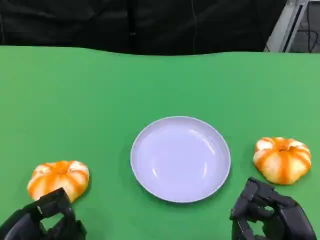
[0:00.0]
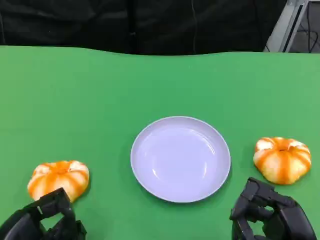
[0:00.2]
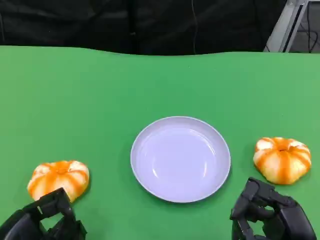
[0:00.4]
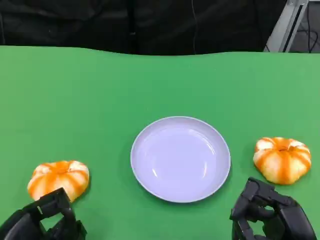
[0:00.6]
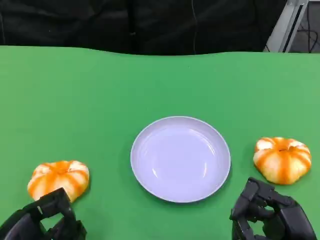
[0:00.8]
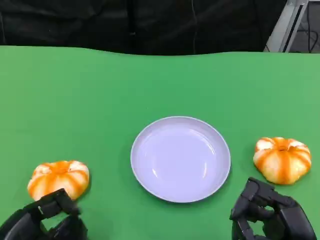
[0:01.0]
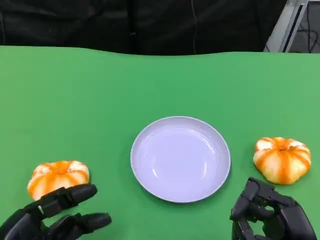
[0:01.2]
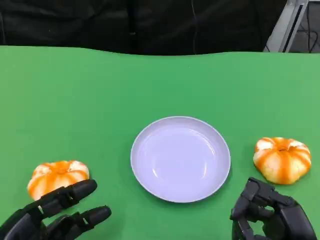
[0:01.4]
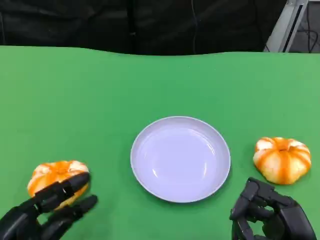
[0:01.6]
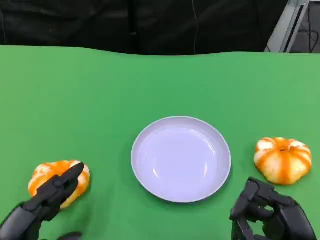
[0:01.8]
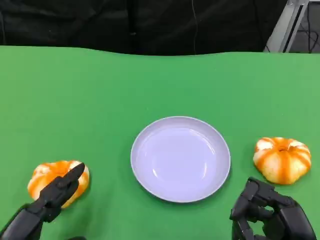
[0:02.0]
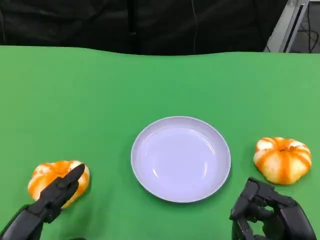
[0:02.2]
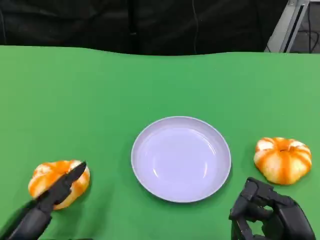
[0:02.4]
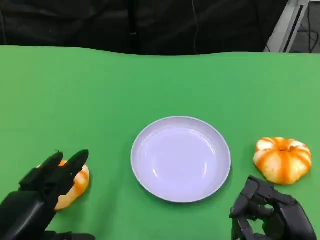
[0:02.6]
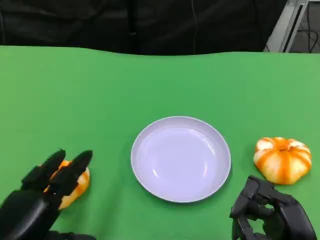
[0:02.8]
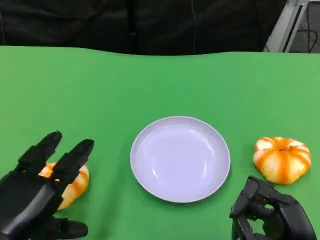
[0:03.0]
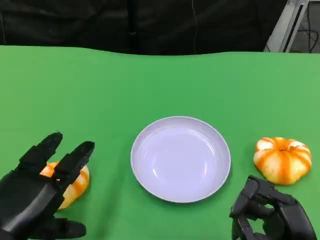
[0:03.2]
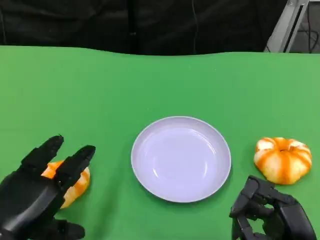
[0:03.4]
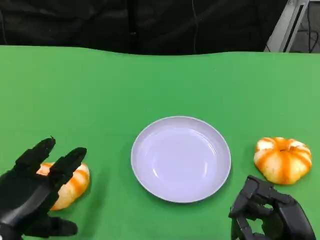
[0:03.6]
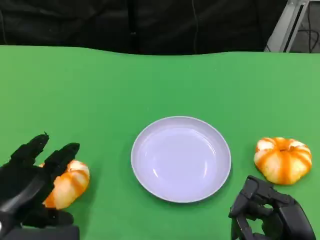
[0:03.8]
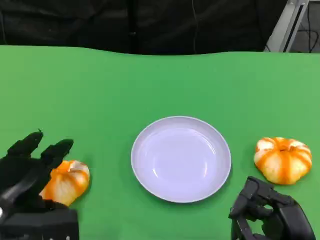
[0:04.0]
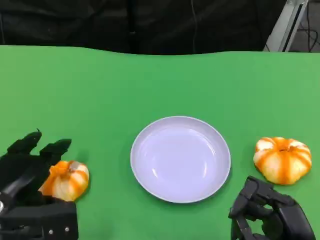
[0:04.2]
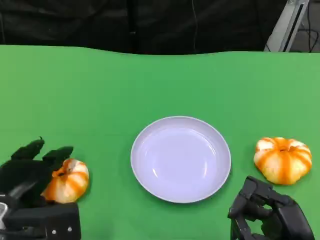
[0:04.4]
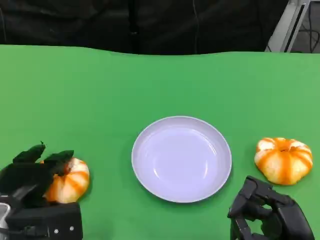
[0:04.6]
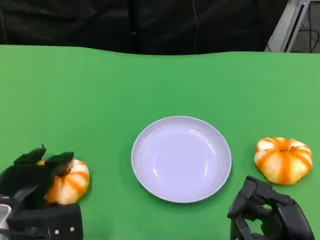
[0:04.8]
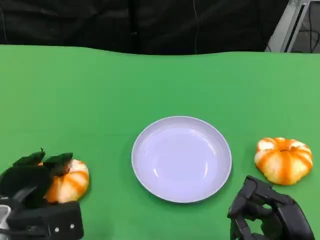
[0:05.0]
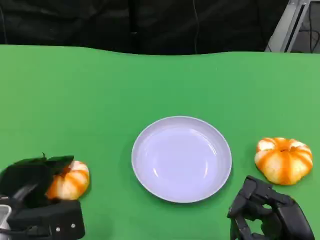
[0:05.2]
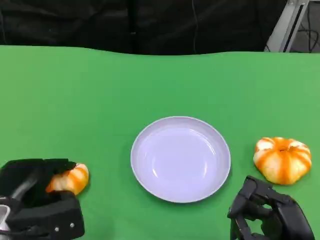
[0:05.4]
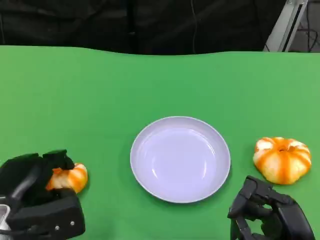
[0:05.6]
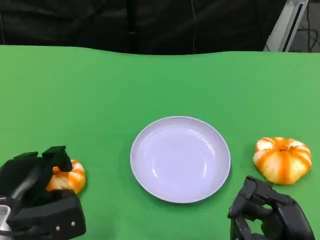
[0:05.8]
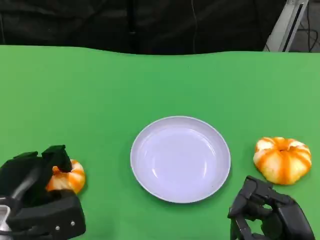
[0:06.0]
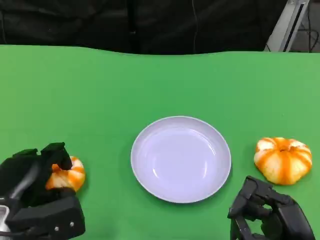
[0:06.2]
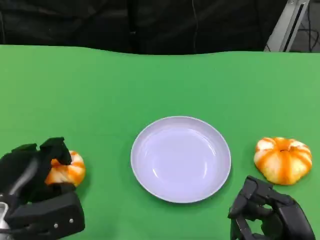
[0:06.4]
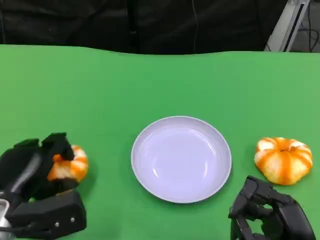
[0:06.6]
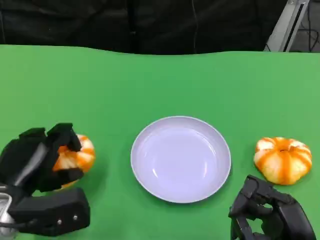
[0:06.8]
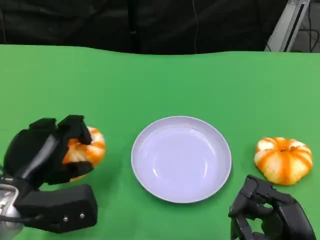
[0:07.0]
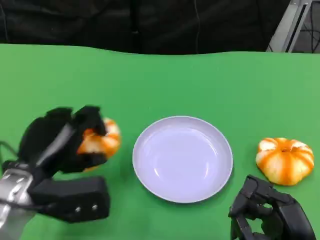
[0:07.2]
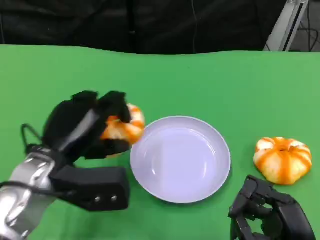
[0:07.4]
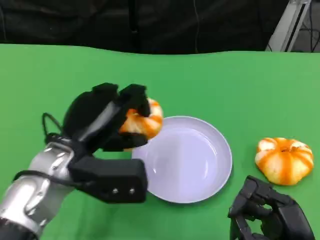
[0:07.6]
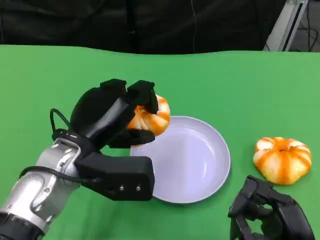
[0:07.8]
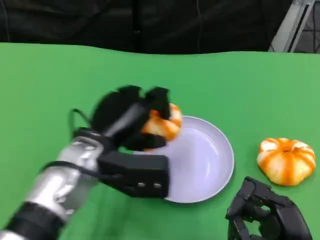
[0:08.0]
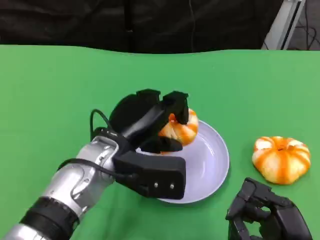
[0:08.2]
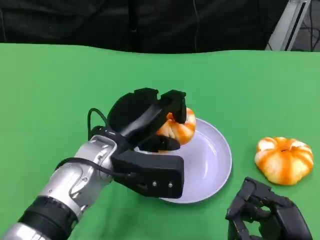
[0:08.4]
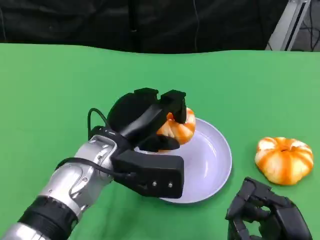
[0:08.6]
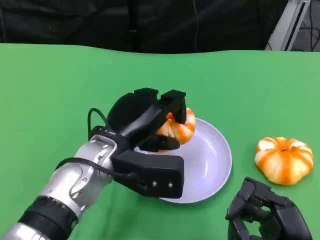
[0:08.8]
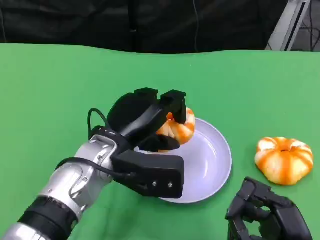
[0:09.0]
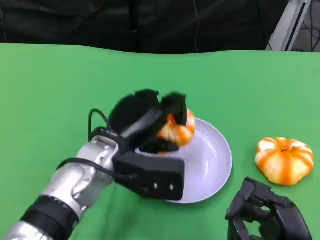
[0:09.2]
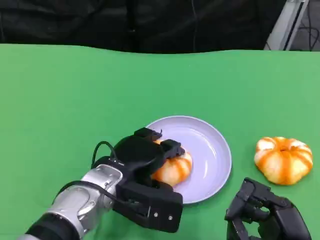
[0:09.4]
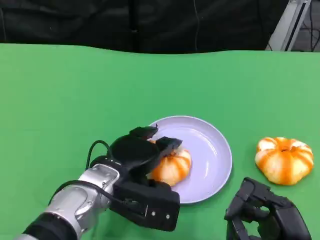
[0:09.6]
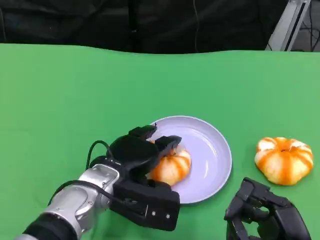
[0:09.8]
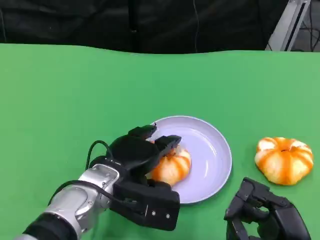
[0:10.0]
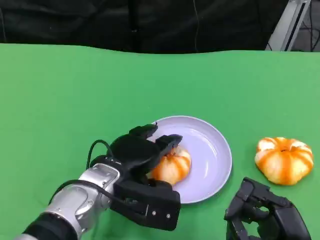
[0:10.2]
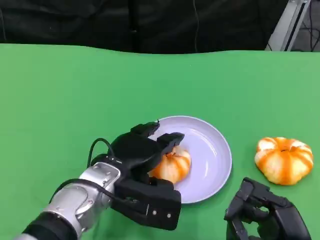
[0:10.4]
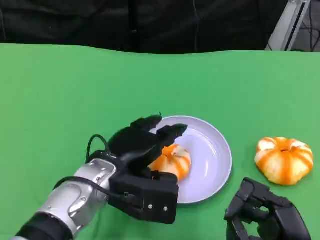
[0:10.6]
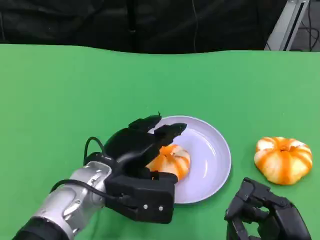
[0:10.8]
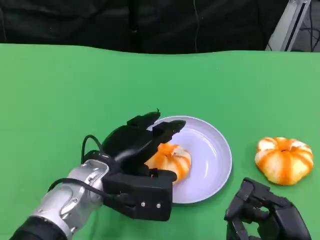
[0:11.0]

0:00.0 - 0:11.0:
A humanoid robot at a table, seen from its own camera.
Task of the whole recording: Grasp the bread from the table and place it into the plate.
0:01.6 - 0:03.2: The left hand ends up some 5 cm from where it was.
0:03.2 - 0:04.8: The left hand is displaced forward and downward by roughly 10 cm.
0:04.8 - 0:06.2: The hands stay close to where they were, moving slightly.
0:06.2 - 0:07.8: The left hand heads to the right, upward and forward, covering some 15 cm.
0:07.8 - 0:09.4: The left hand goes about 5 cm downward.
0:09.4 - 0:11.0: The hands make only small movements.

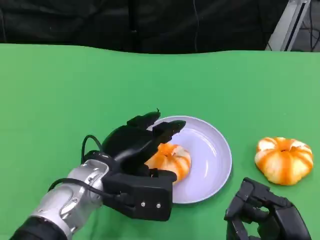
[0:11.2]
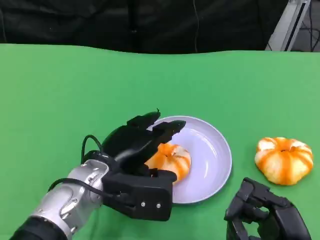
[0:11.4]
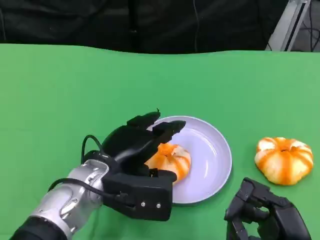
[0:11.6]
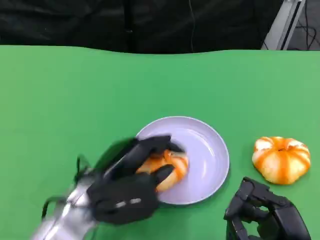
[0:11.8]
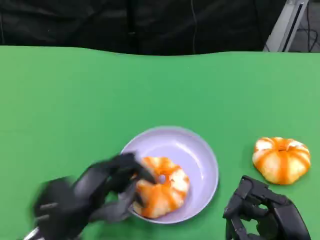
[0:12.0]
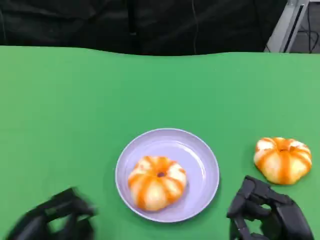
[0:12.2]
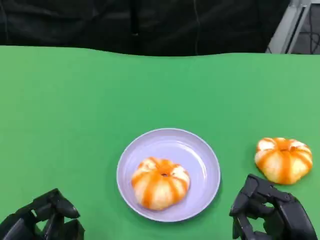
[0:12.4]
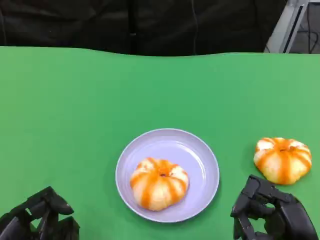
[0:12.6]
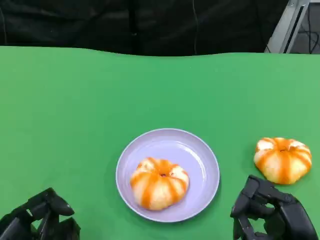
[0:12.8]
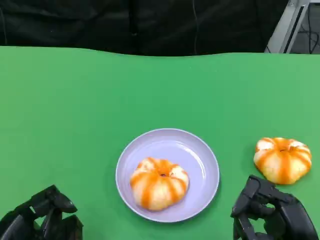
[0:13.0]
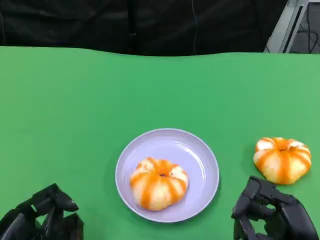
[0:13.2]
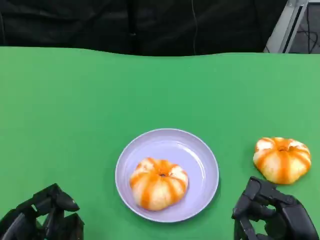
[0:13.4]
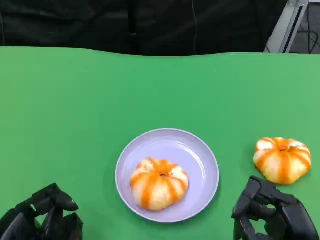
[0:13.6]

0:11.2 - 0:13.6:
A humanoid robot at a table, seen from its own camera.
Task of the whole recording: Grasp the bread from the table and place it into the plate.
0:11.2 - 0:12.4: The left hand shifts some 20 cm to the left and backward.
0:12.4 - 0:13.6: Neither hand changes place.

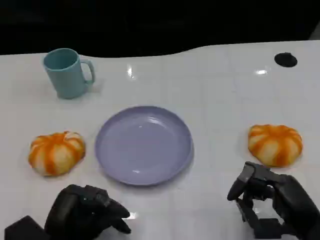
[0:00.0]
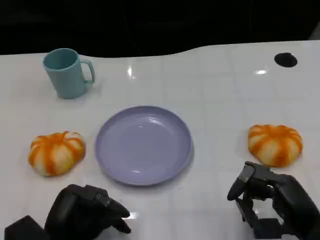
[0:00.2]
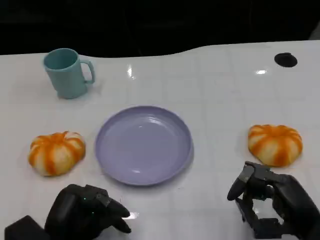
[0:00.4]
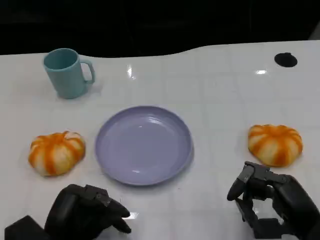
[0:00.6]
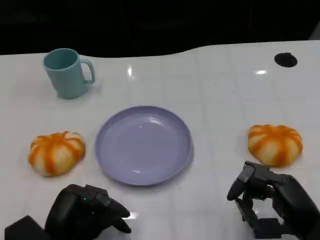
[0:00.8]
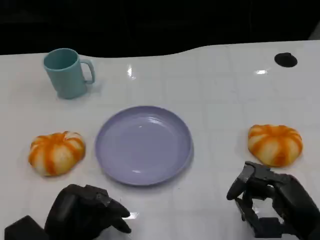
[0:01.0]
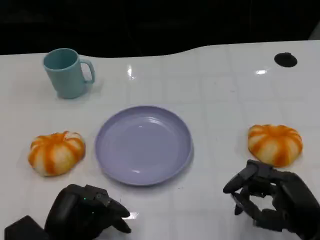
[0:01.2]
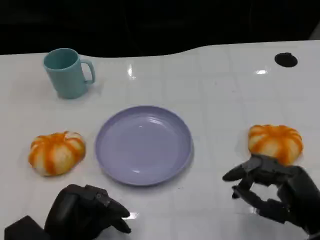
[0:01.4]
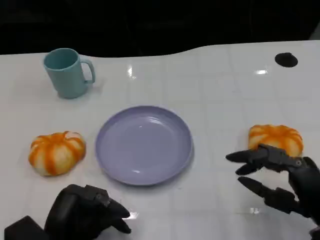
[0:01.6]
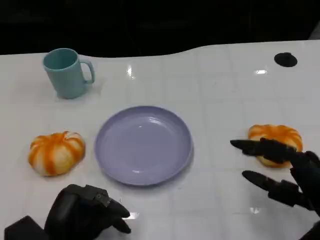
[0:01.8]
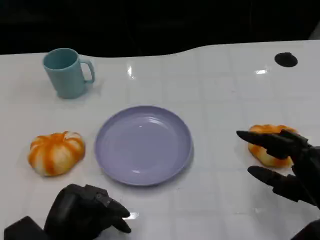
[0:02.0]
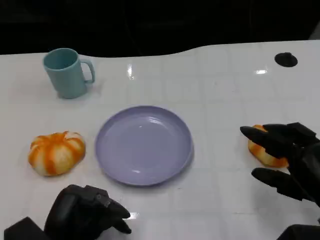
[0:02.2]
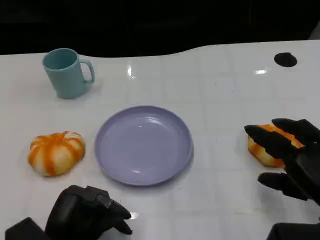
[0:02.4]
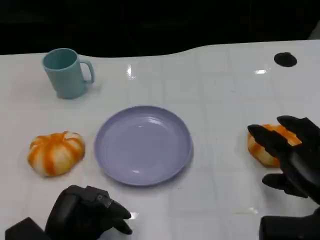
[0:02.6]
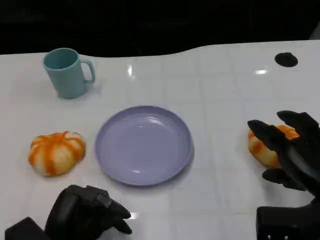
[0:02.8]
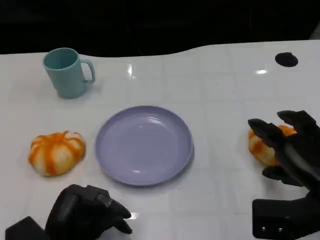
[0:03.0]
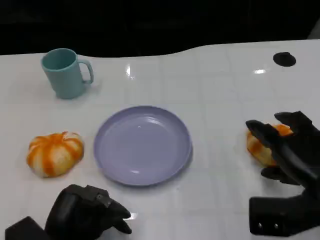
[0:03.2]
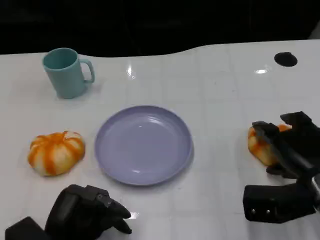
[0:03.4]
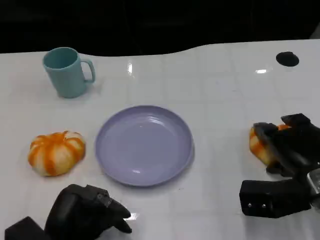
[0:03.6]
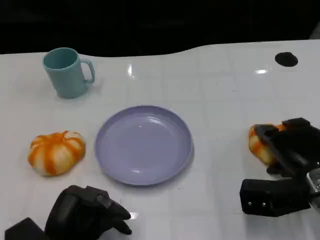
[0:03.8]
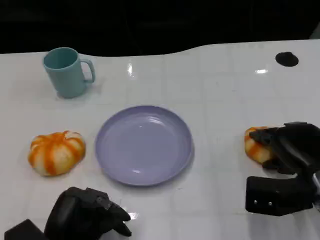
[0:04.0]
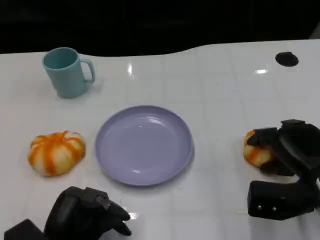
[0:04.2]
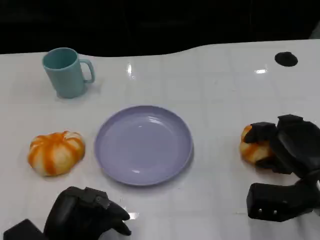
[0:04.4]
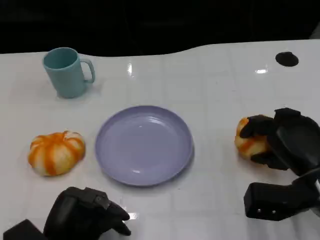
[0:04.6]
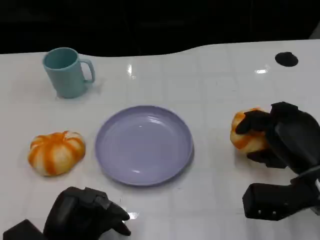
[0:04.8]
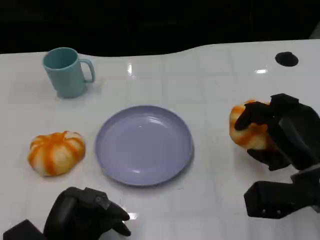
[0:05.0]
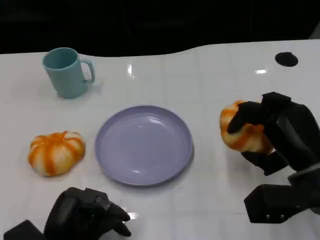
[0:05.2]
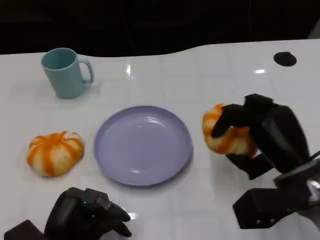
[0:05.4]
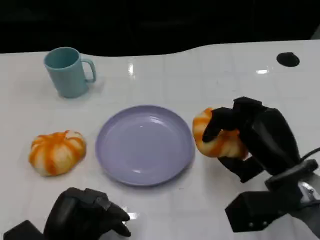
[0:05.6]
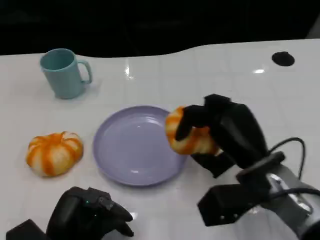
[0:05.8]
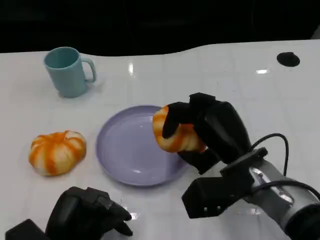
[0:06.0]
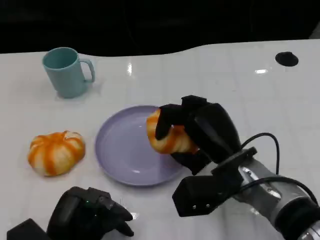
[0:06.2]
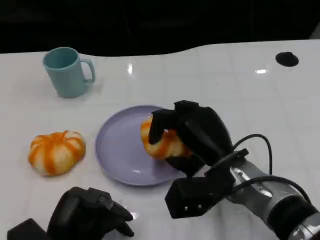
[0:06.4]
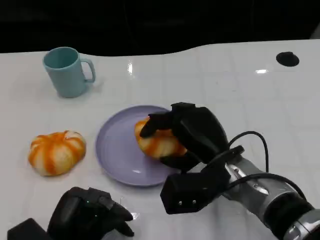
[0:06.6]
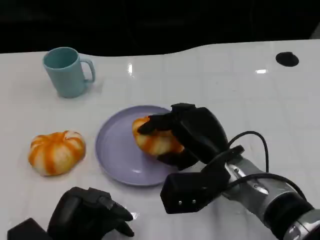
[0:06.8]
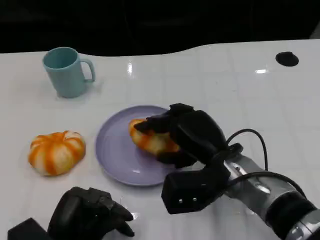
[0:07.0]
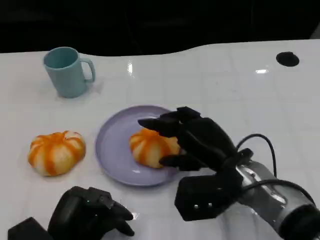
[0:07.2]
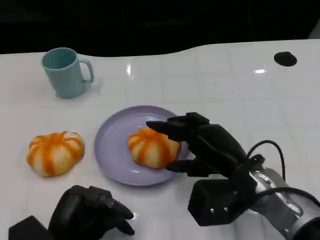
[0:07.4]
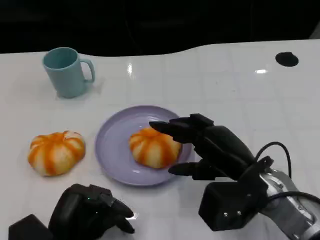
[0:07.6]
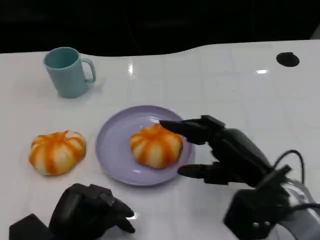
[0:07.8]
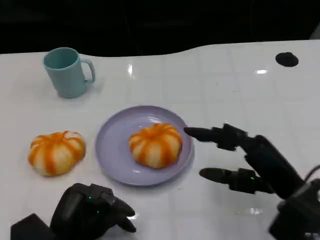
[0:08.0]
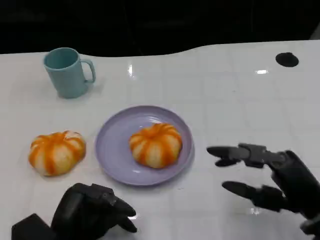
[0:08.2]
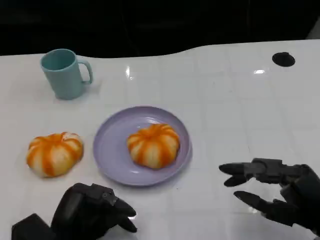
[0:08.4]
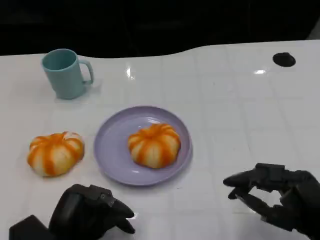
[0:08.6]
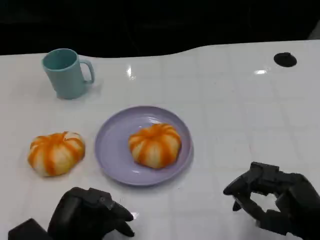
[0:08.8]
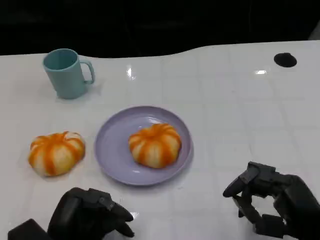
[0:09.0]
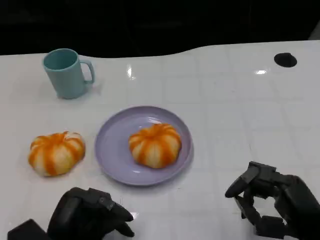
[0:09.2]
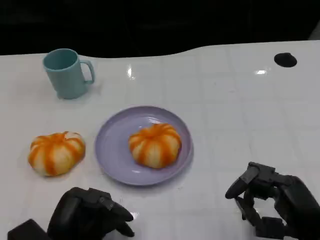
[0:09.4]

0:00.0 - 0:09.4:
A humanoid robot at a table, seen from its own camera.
Task of the whole recording: Grasp the bread from the table and place it into the plate.
0:00.0 - 0:01.6: There are only small adjustments of the hands.
0:01.6 - 0:03.2: The right hand moves forward, some 5 cm.
0:04.8 - 0:06.2: The right hand travels to the left by approximately 10 cm.
0:06.2 - 0:07.8: The right hand is displaced to the right by approximately 5 cm.
0:07.8 - 0:09.4: The right hand shifts some 10 cm backward and to the right.
